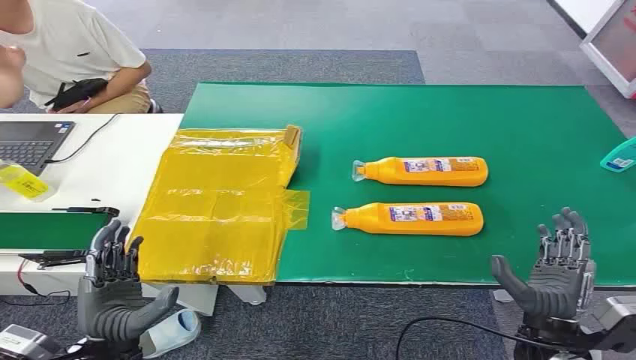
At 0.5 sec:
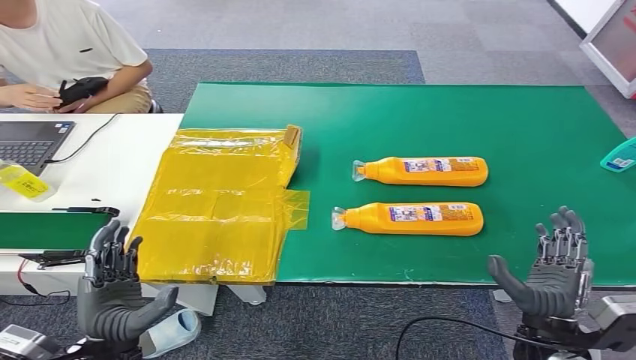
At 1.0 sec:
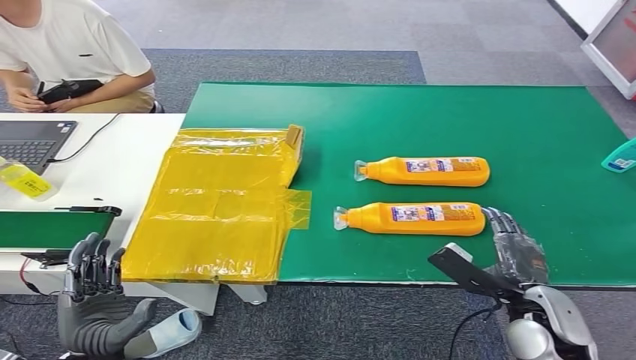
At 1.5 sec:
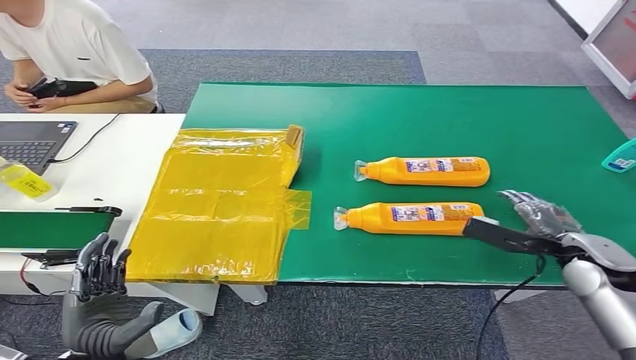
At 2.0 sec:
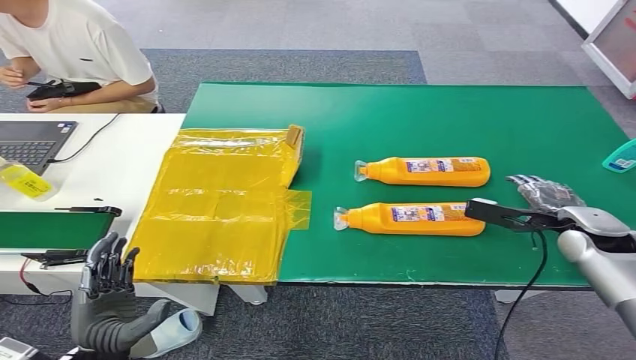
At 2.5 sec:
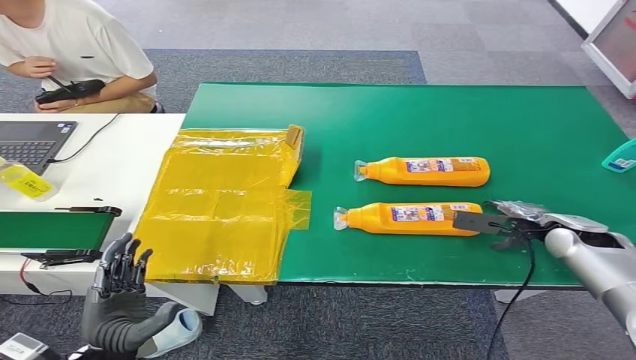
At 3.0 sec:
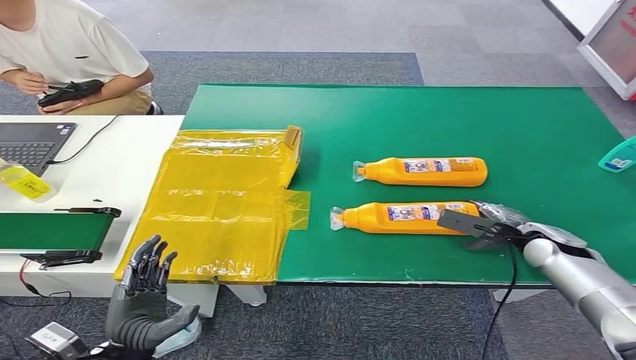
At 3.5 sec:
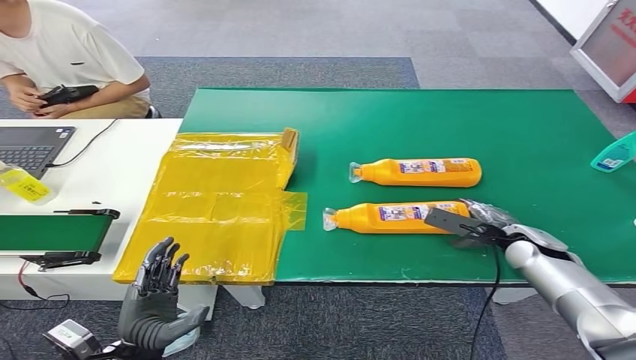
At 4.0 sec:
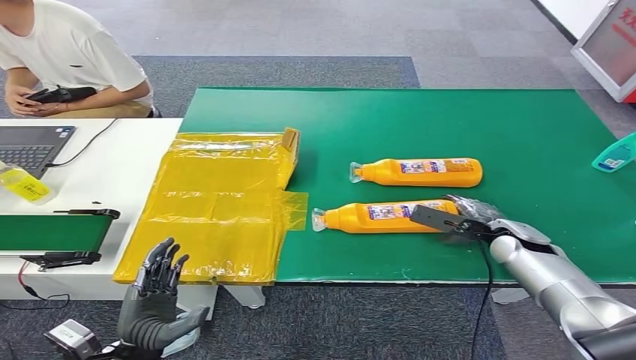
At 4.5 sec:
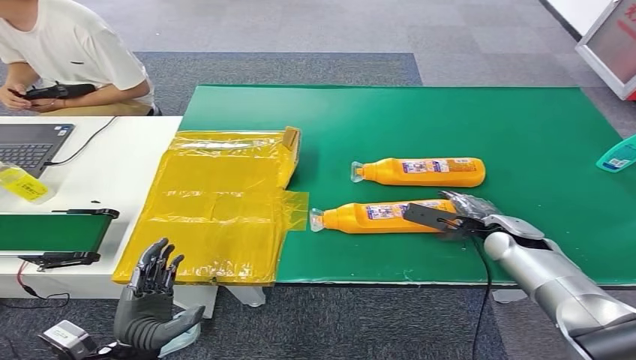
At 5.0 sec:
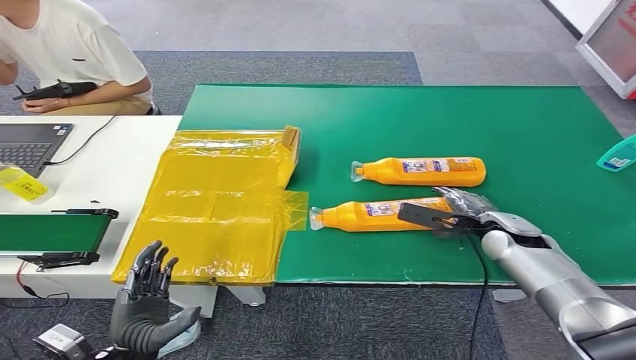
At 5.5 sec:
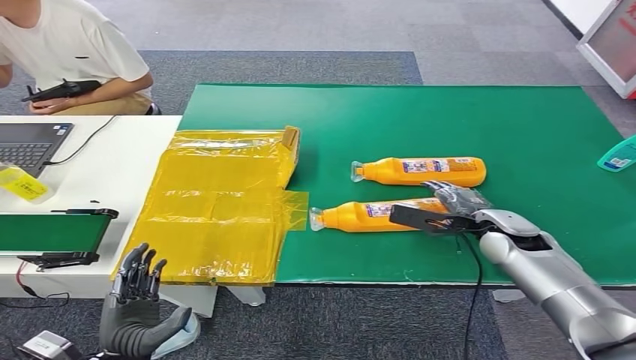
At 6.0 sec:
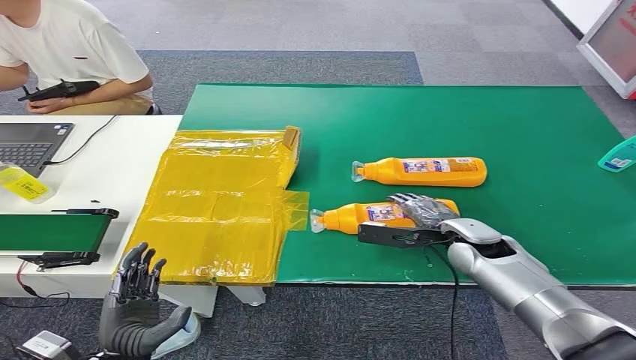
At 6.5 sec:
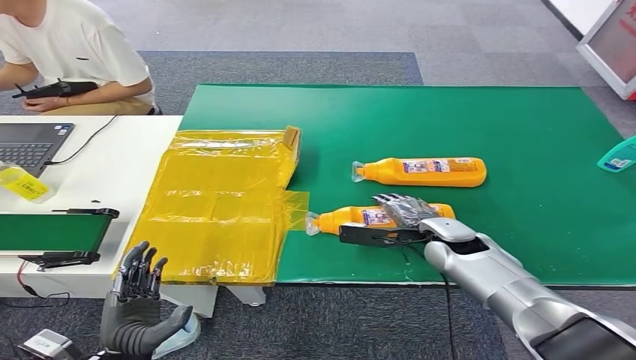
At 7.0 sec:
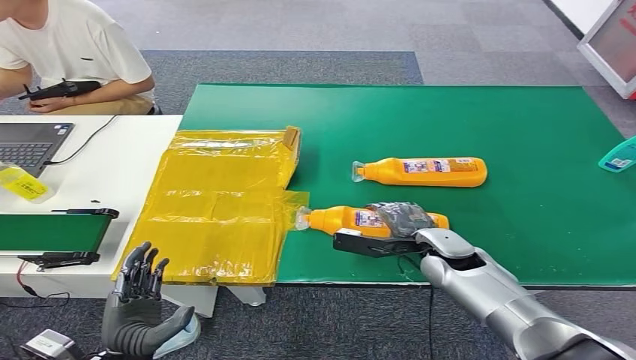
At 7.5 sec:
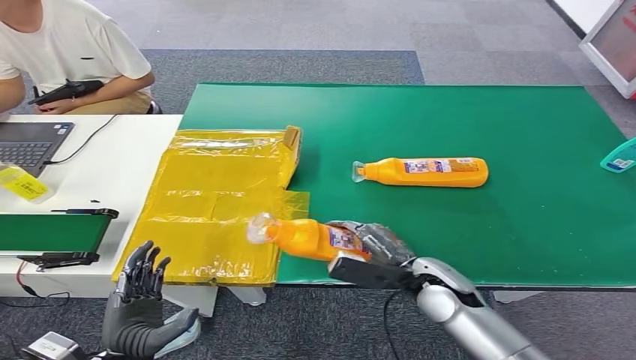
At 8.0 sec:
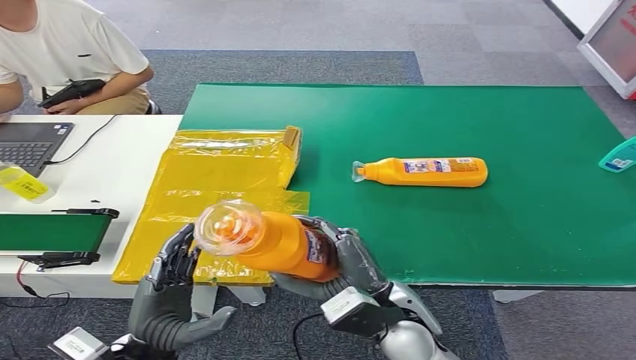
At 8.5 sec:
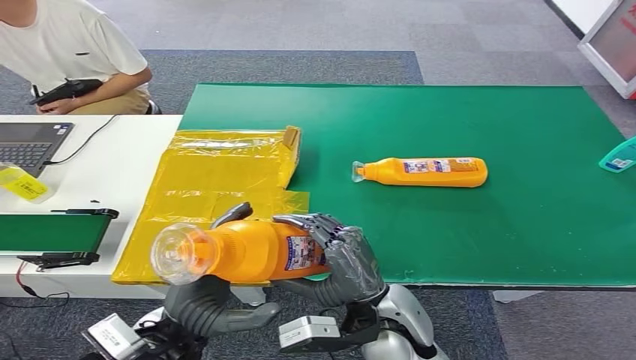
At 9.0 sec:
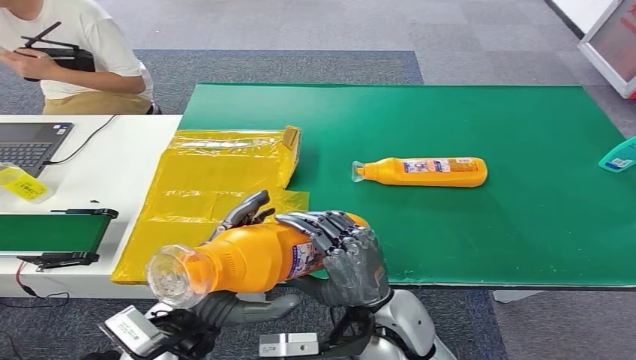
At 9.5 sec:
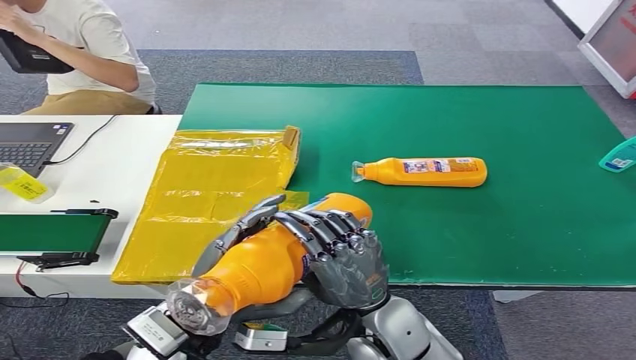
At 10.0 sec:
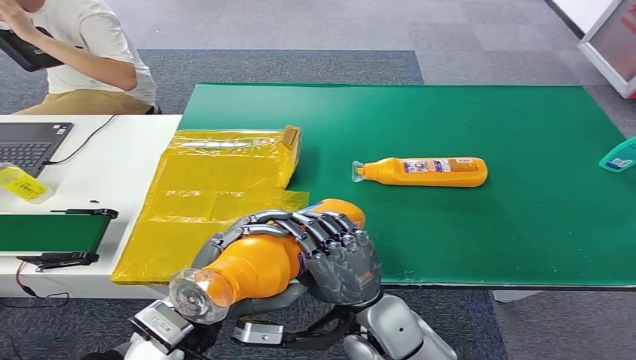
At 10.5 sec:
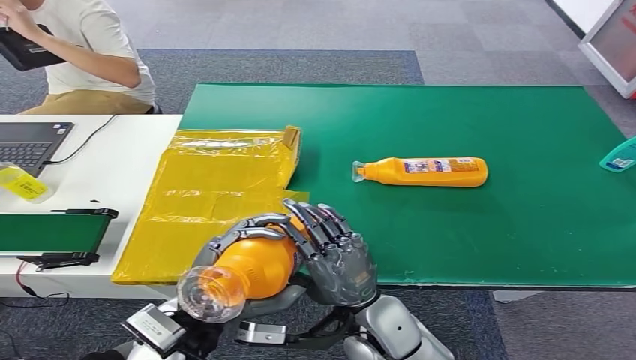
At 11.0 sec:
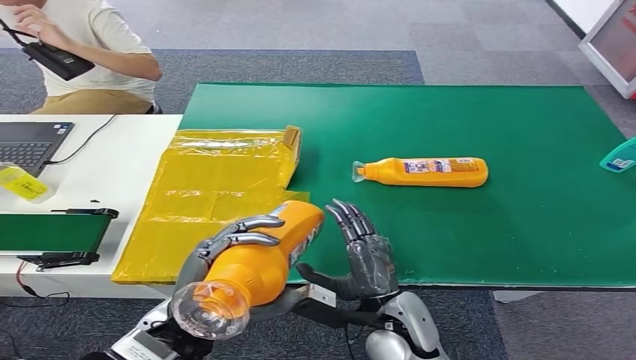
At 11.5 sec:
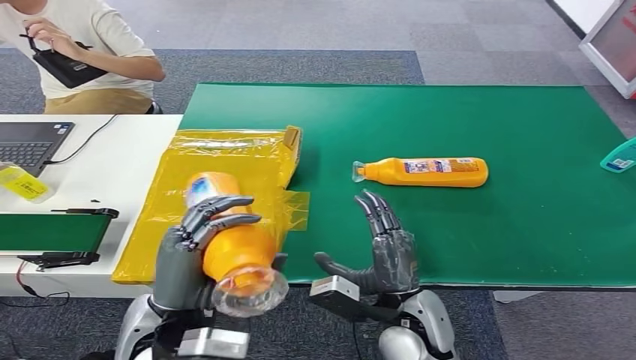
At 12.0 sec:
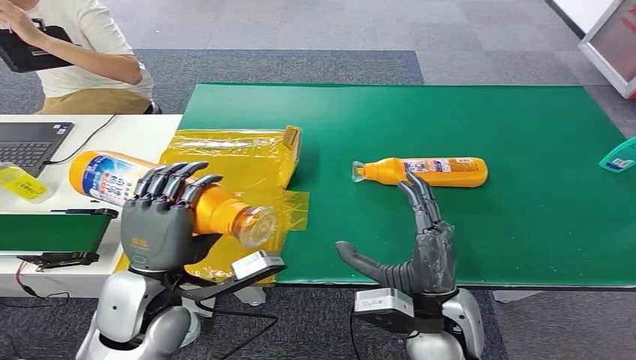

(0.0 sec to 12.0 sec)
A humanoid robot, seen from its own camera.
4.0 sec - 6.0 sec: The right hand heads to the left, covering roughly 10 cm.
6.0 sec - 8.0 sec: The left hand is displaced upward by approximately 5 cm. Meanwhile the right hand shifts about 20 cm backward and to the left.
8.0 sec - 10.0 sec: The left hand is displaced upward and to the right by roughly 10 cm.

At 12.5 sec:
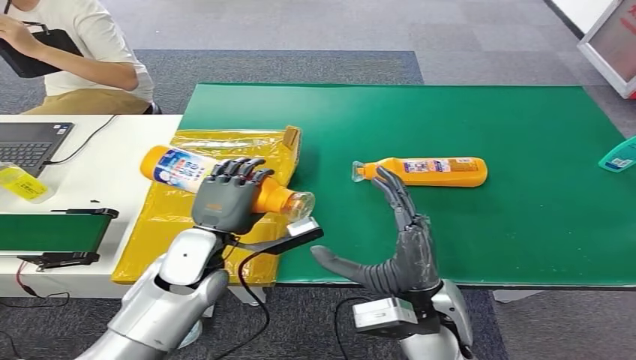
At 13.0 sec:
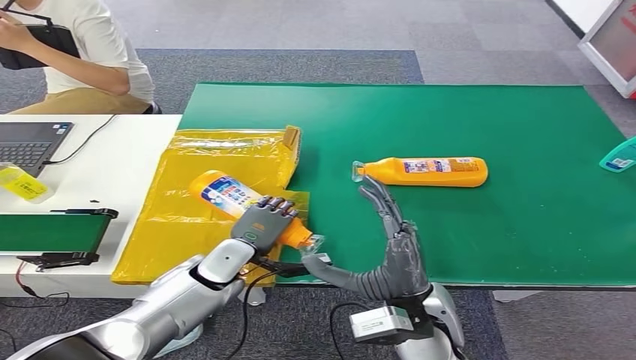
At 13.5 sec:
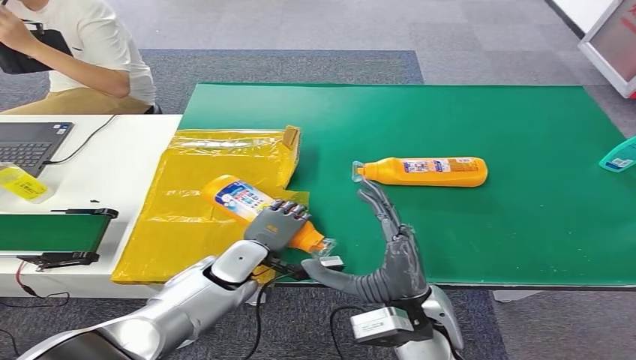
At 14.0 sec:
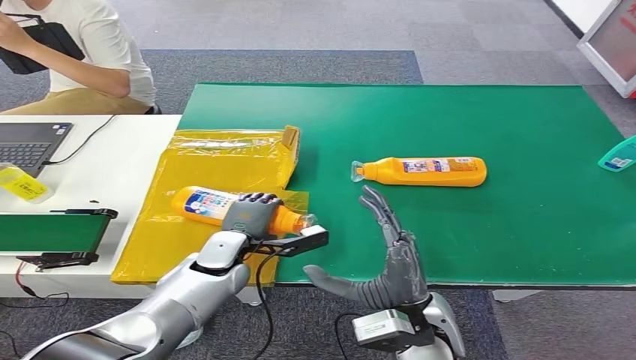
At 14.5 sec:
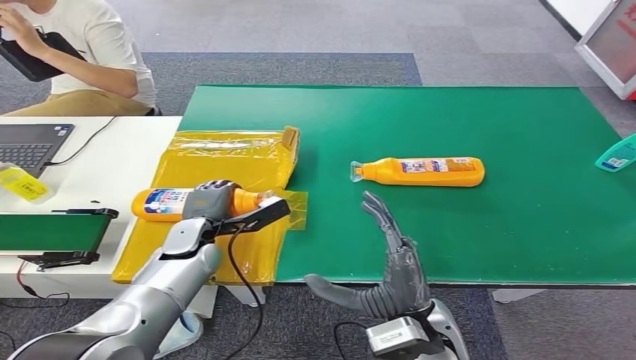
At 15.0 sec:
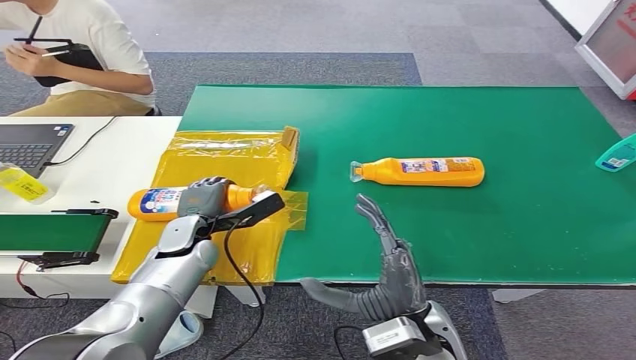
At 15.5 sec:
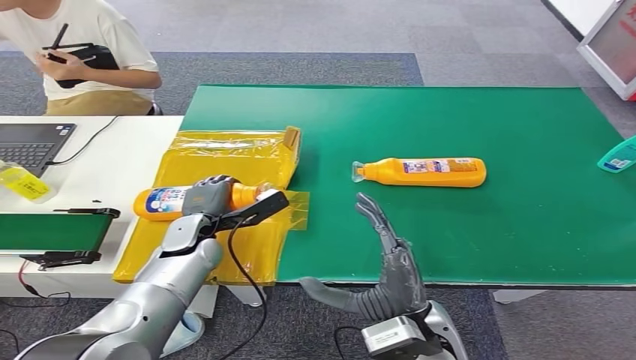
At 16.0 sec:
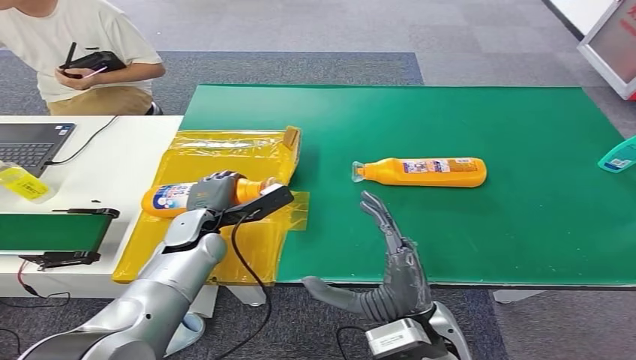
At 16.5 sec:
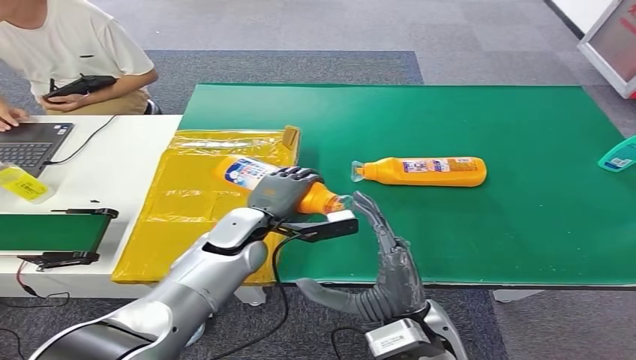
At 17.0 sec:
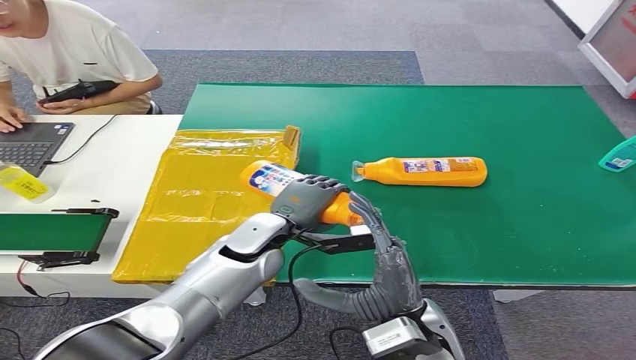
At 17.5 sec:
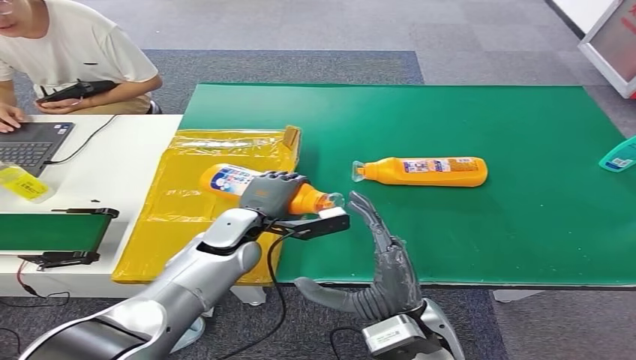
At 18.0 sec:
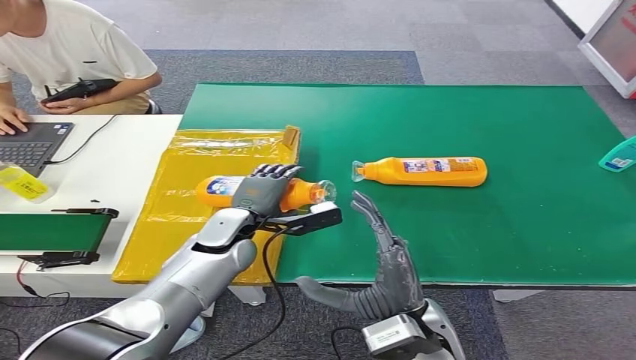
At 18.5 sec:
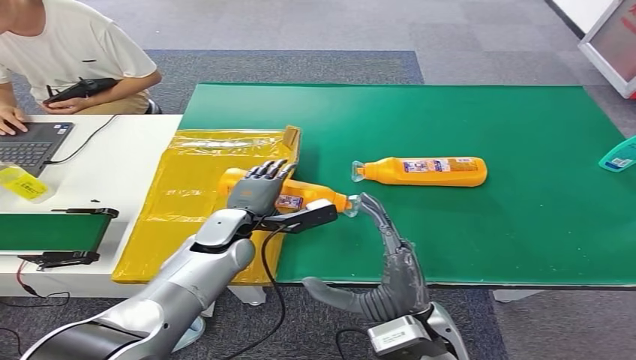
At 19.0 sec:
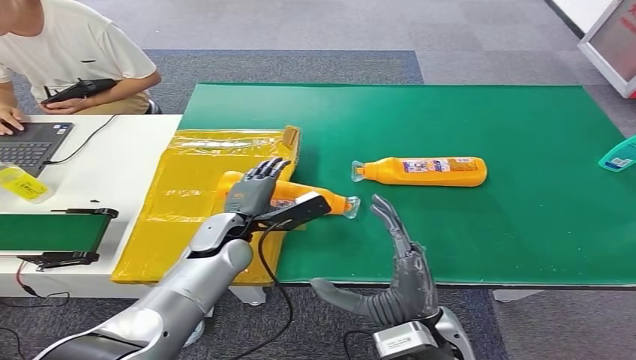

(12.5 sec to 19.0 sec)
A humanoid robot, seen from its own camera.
Step, 13.0 sec - 19.0 sec: Turn the bottle to the front side.
17.0 sec - 19.0 sec: The left hand moves to the left, about 5 cm.
